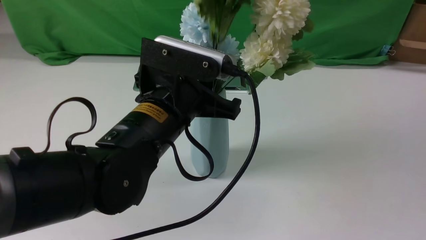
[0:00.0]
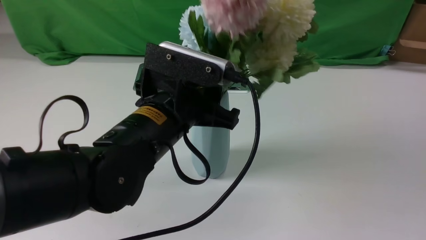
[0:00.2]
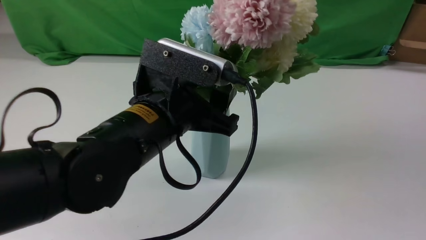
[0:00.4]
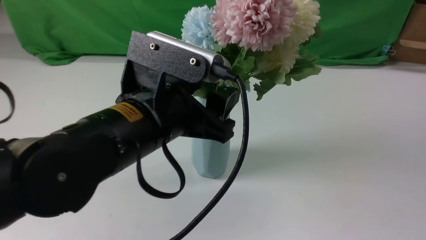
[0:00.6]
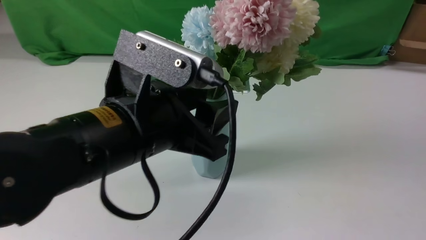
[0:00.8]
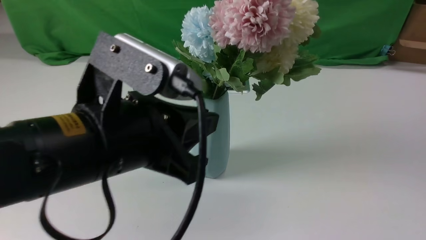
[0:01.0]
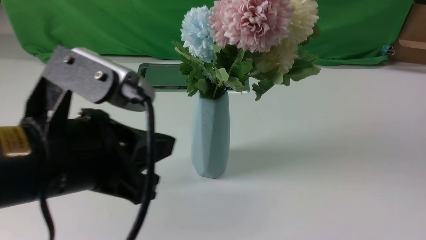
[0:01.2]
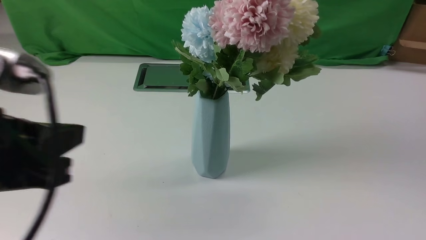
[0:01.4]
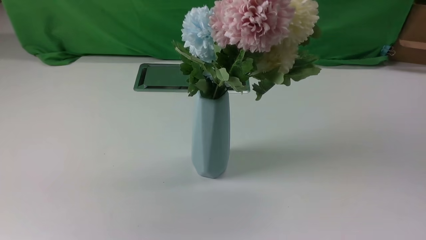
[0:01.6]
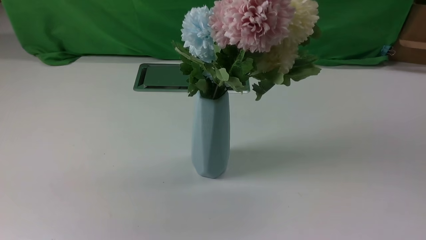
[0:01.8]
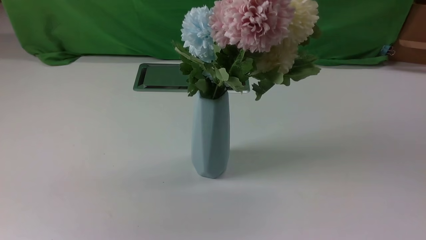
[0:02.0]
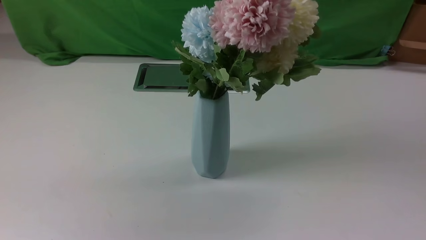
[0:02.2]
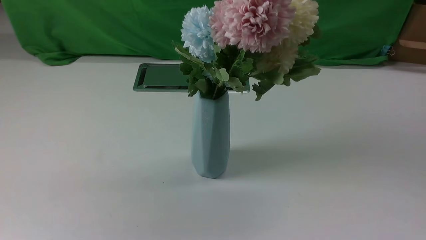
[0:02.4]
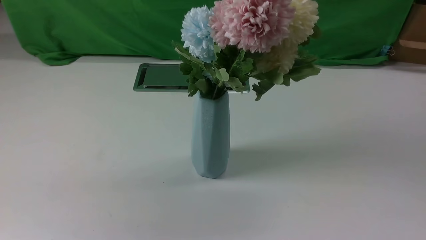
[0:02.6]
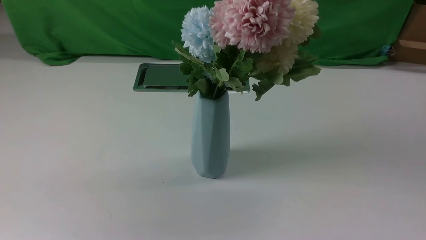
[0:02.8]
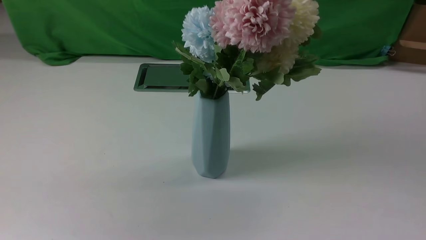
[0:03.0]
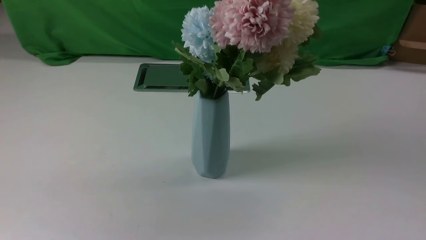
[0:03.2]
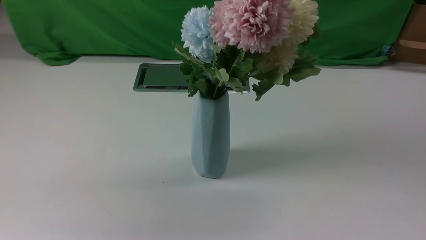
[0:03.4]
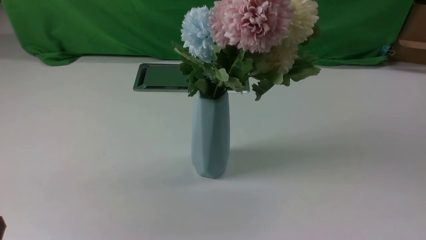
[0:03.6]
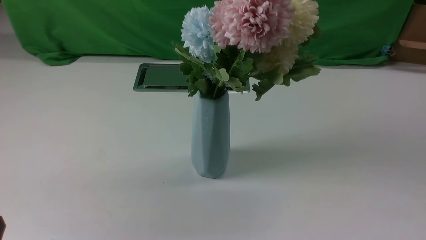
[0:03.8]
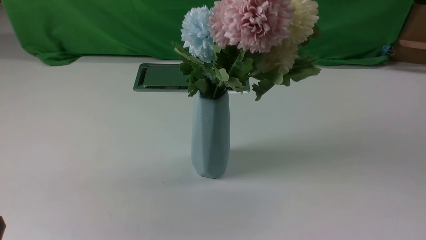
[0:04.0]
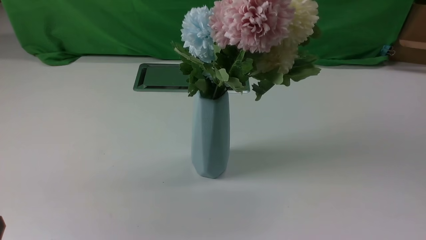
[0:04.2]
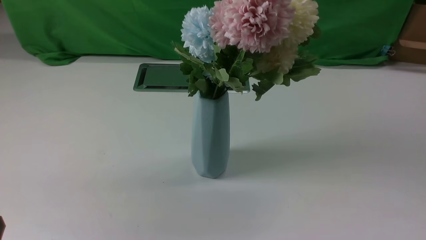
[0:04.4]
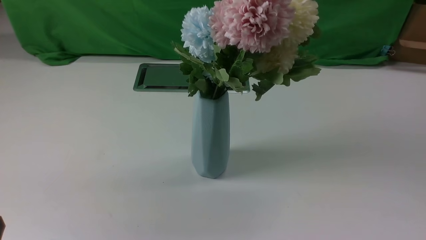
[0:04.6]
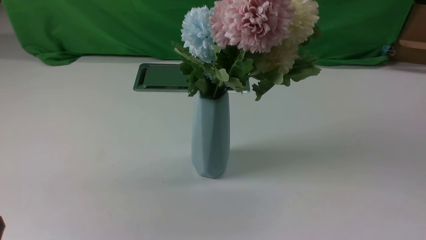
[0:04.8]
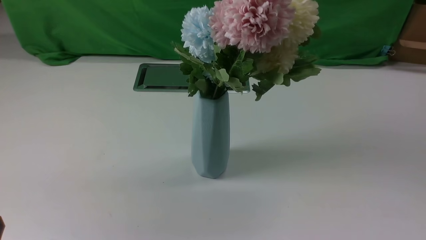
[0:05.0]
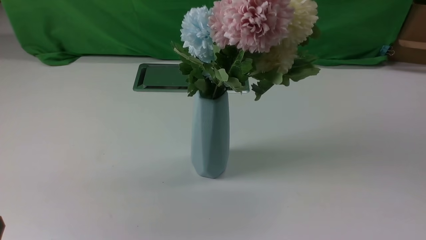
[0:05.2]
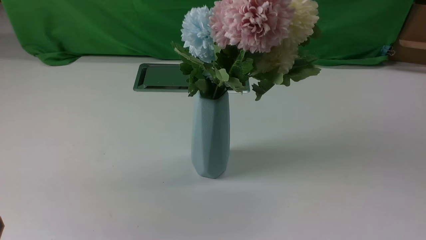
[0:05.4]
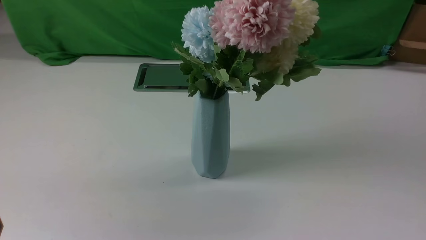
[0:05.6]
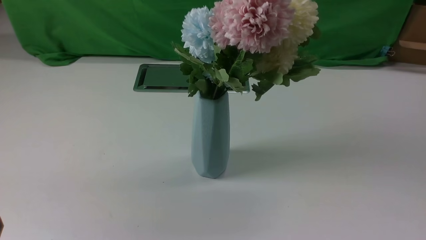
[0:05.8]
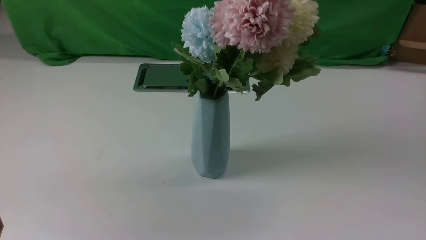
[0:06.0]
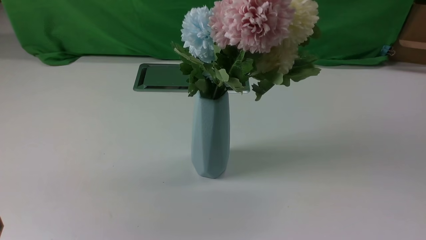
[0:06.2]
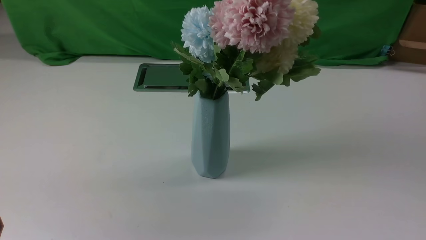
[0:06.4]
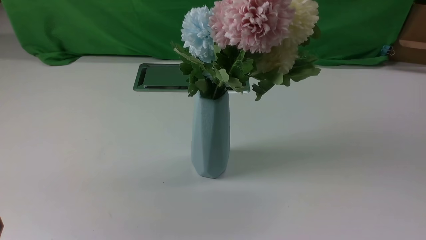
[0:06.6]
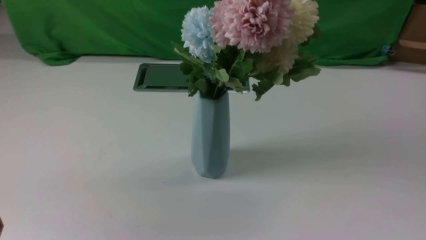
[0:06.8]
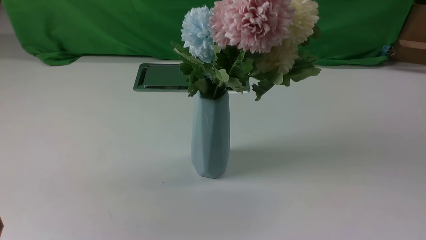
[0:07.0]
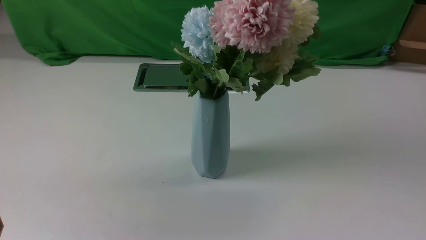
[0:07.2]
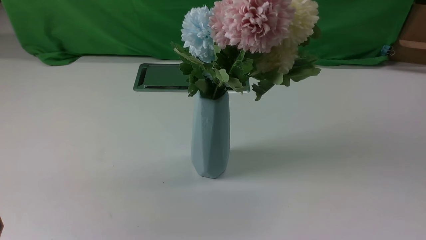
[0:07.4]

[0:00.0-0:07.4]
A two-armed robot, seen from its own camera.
Task of the whole recording: insert the flowers into the vase on the white table.
0:00.0 to 0:01.4: The left gripper heads backward, to the left and upward, covering about 20 cm, and opens and closes again.
0:01.4 to 0:03.0: The left gripper heads backward and to the left, covering some 10 cm; the right gripper heads downward and backward, covering approximately 10 cm.
0:06.0 to 0:07.4: Both grippers stay put.
